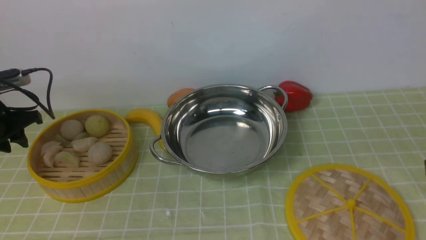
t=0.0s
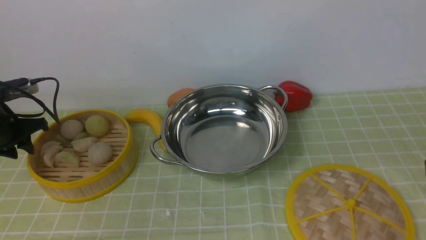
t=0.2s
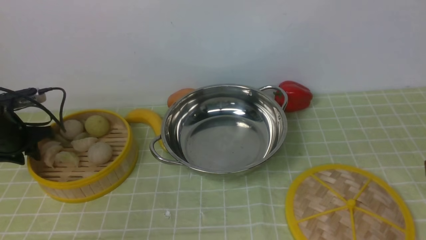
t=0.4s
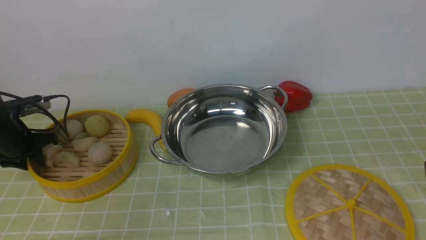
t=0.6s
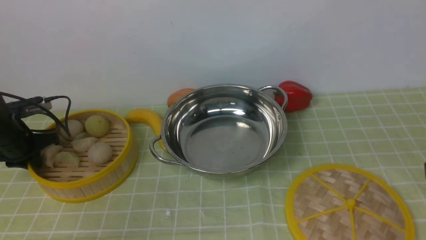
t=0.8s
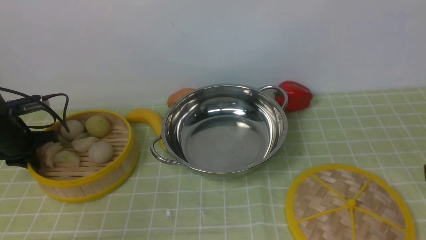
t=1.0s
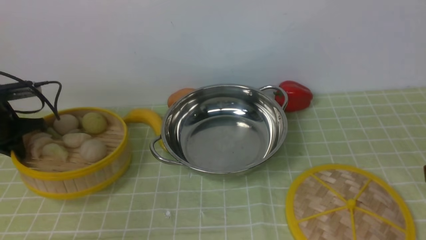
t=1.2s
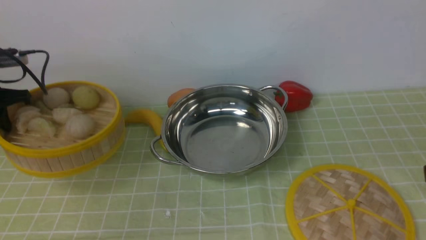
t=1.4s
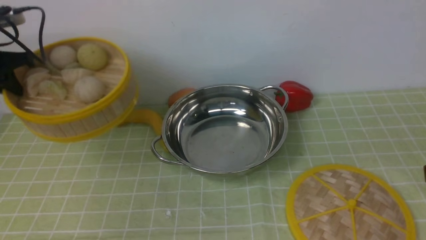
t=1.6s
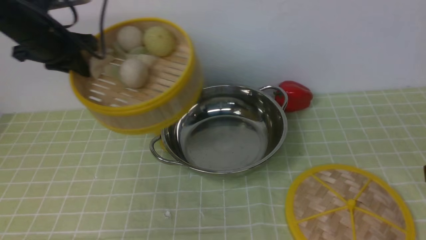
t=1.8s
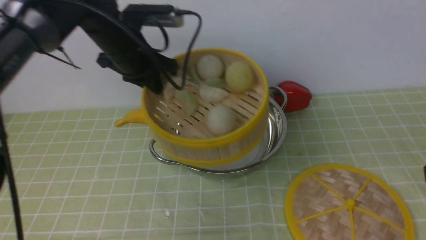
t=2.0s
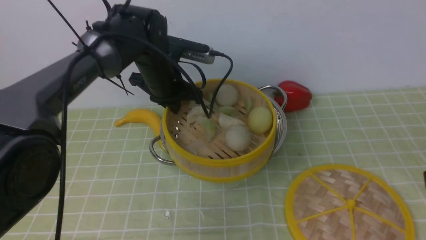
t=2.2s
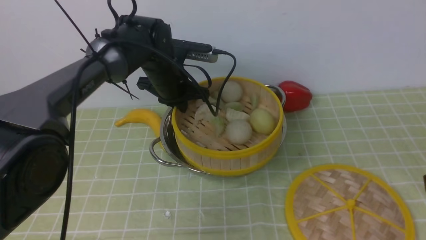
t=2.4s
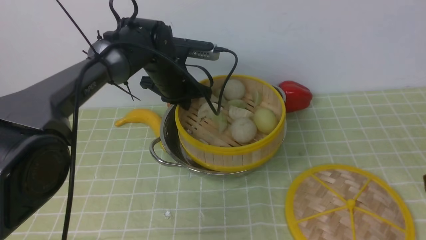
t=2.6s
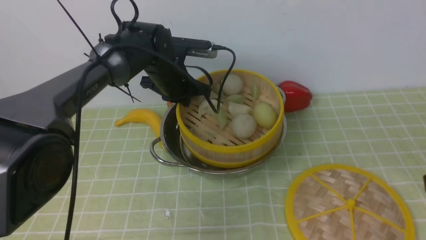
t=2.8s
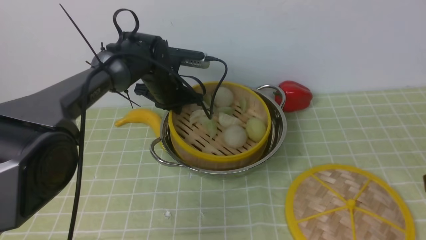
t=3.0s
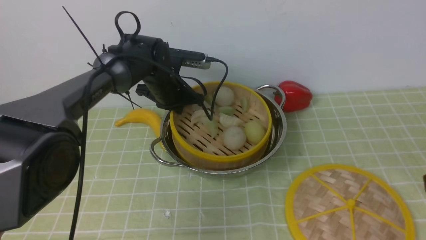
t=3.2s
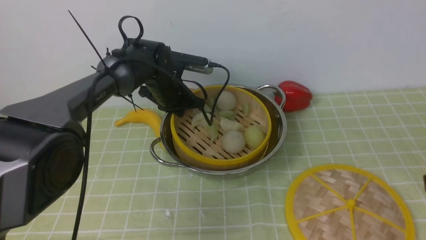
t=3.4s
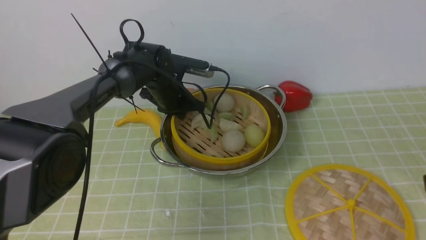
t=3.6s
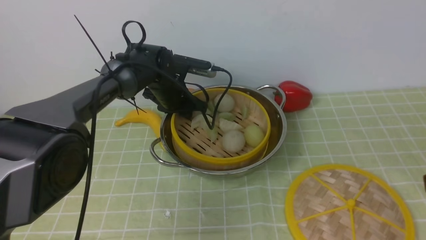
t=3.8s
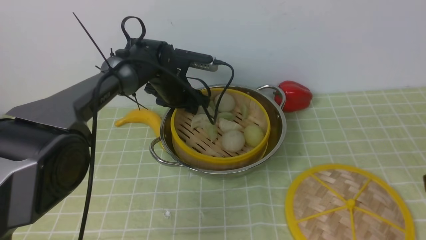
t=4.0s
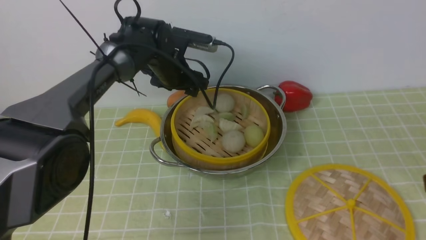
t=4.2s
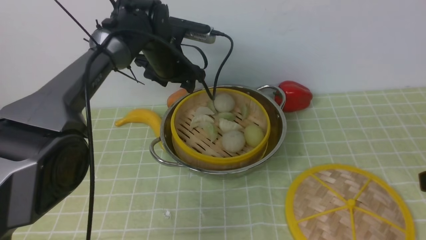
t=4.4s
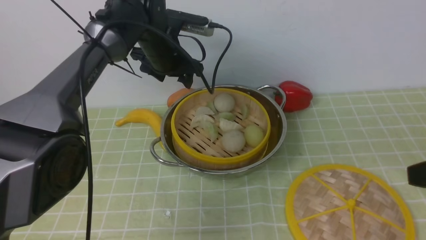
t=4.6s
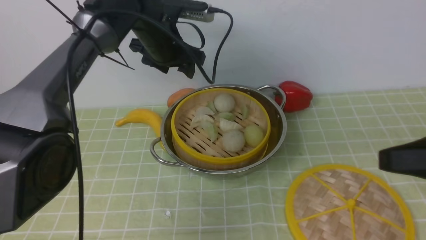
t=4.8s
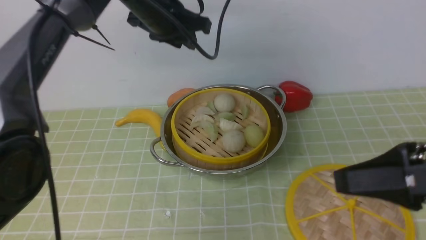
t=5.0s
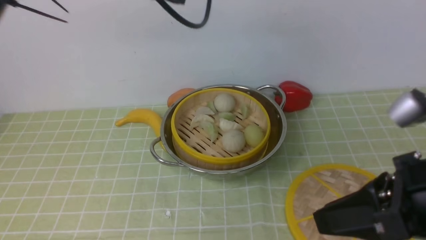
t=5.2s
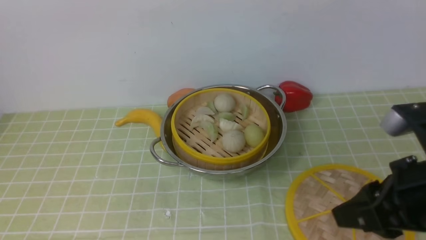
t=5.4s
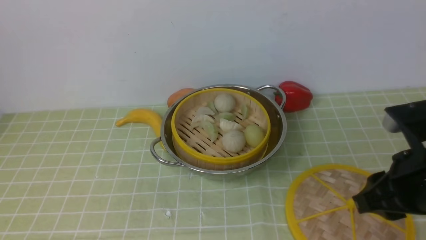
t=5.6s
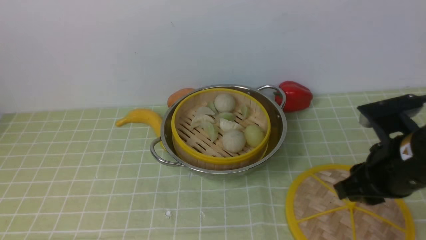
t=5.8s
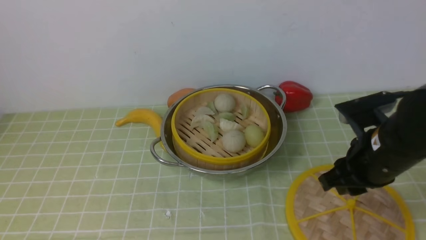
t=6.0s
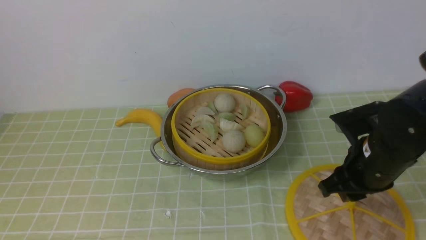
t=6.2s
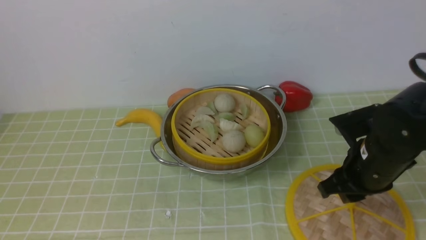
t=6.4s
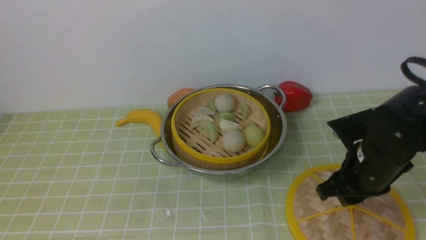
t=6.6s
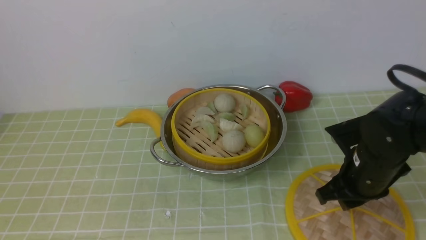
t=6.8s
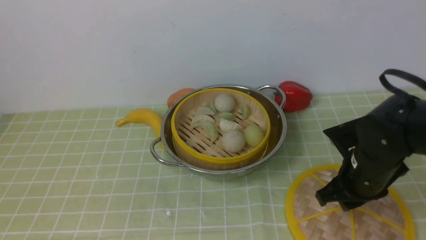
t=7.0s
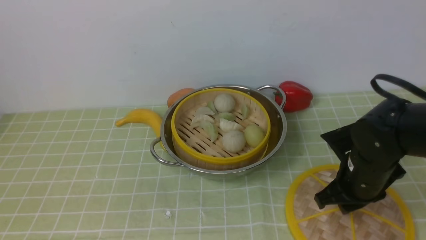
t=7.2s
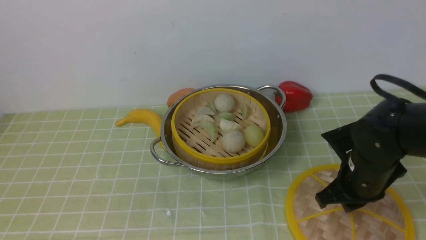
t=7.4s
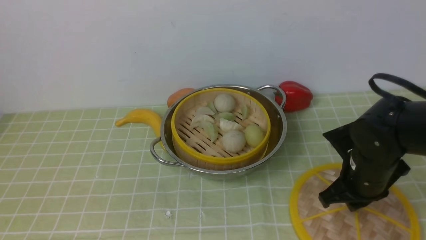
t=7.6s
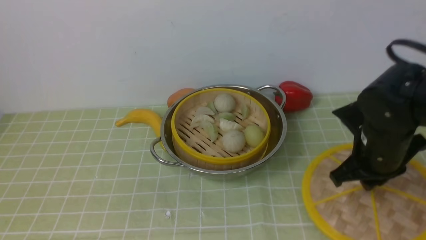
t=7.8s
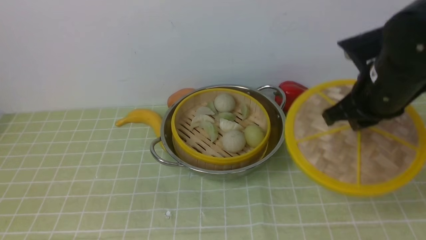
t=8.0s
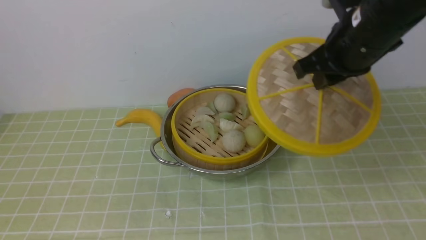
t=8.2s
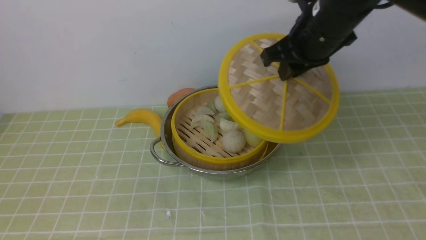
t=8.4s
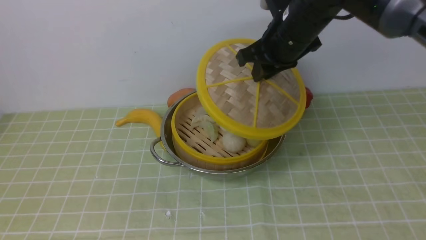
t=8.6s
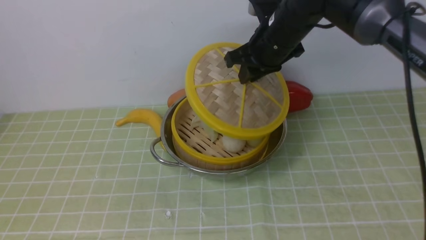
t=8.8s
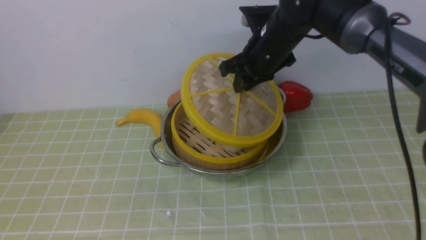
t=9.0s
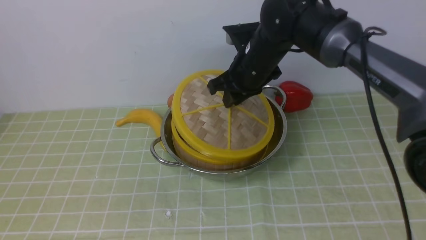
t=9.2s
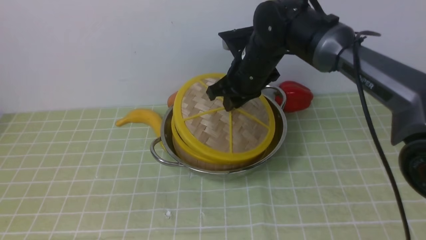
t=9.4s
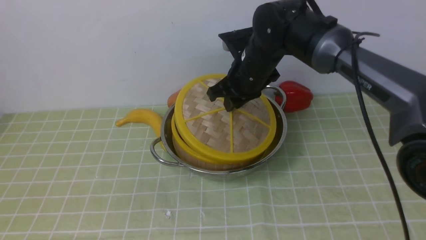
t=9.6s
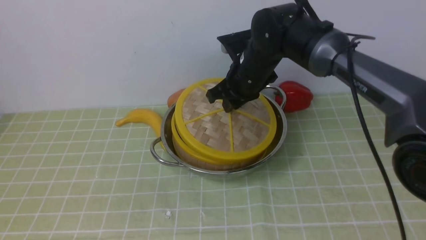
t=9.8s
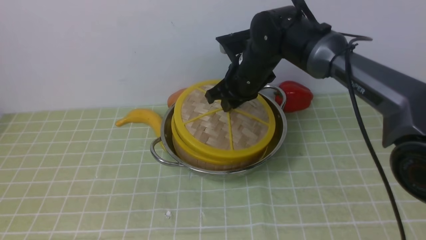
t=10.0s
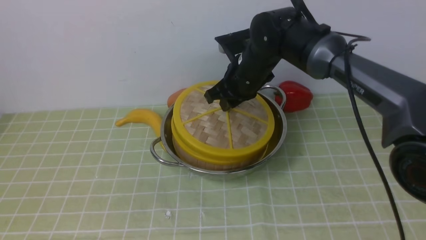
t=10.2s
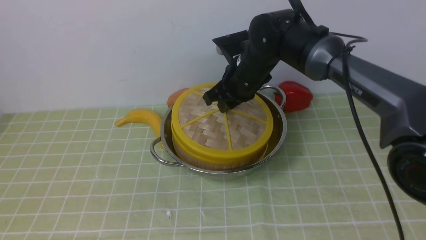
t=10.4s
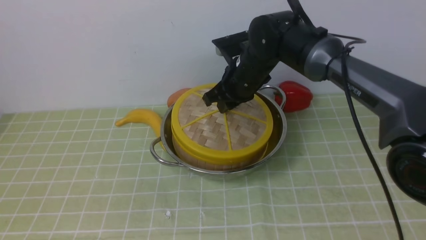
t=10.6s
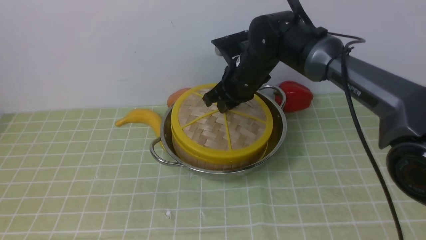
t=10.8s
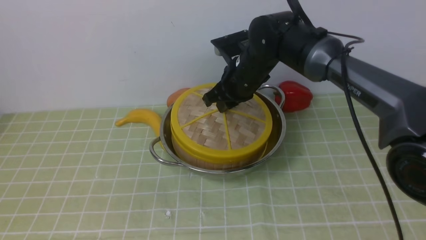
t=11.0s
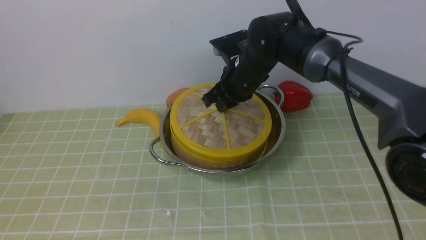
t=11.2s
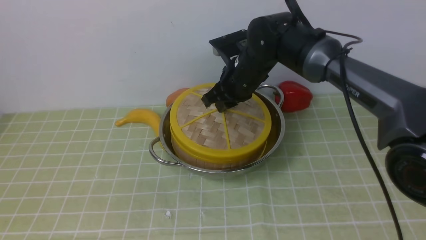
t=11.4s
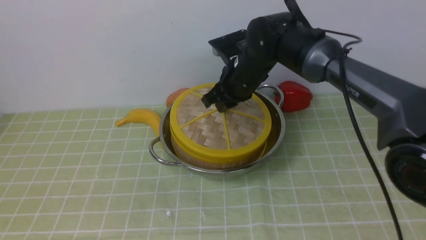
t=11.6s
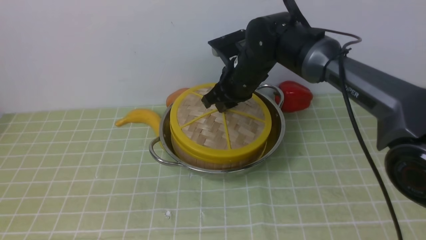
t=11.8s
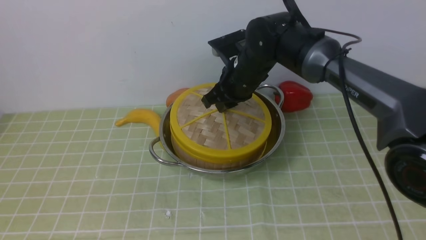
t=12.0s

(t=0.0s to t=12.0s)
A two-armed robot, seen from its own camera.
Task of the whole recording: place the steamer in the pot on the green tablecloth, and put the lid on the steamer.
Step, t=1.8s - t=4.2s: use the left arm to put the steamer into the iron steamer pot in the middle.
Step, t=4.4s - t=8.0s: use the right arm to lift the lid of the steamer.
t=0.0s - t=1.6s: The left gripper heads upward, covering some 10 cm, and closes its fingers.
t=1.6s - t=3.0s: The left gripper is displaced to the right and downward by about 25 cm.
t=3.0s - t=4.4s: The left gripper travels upward by approximately 5 cm, and opens.
t=4.4s - t=6.0s: The right gripper travels forward, downward and to the left by approximately 15 cm. Meanwhile the left gripper is displaced backward and upward by roughly 50 cm, and closes.
t=6.0s - t=7.6s: The right gripper moves approximately 5 cm.
t=7.6s - t=9.0s: The right gripper goes about 20 cm forward, to the left and upward.
t=9.0s - t=10.4s: The right gripper changes place by approximately 5 cm.
t=10.4s - t=12.0s: Both grippers stay about where they are.

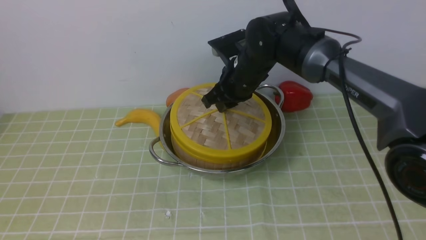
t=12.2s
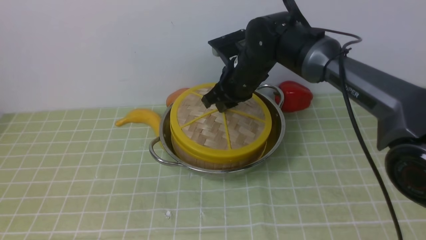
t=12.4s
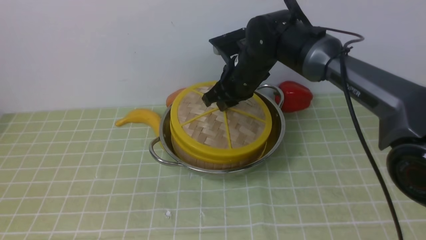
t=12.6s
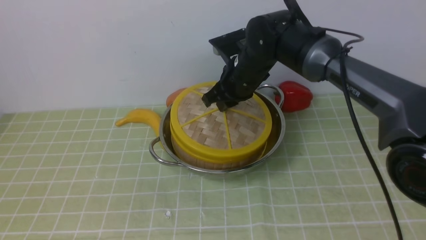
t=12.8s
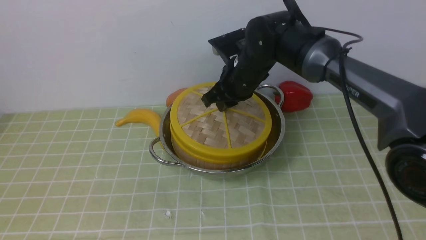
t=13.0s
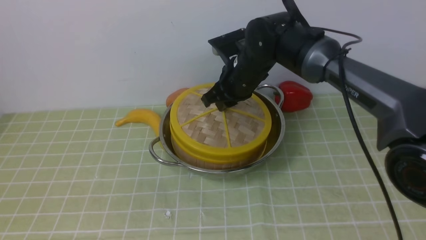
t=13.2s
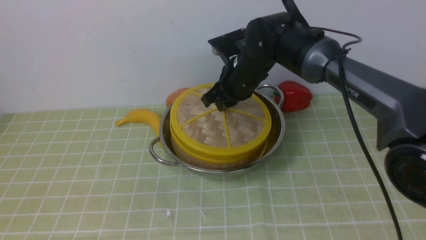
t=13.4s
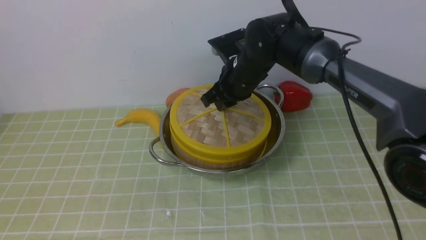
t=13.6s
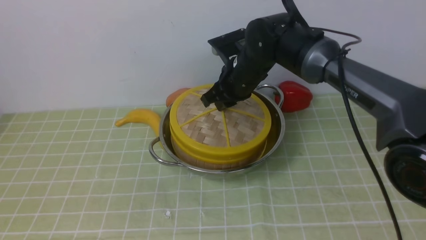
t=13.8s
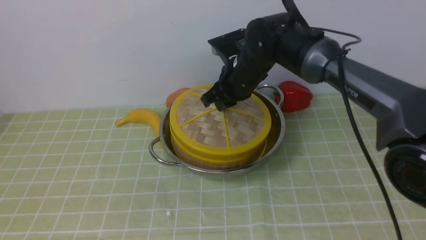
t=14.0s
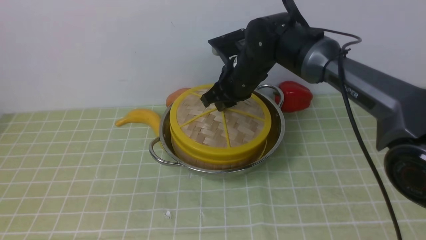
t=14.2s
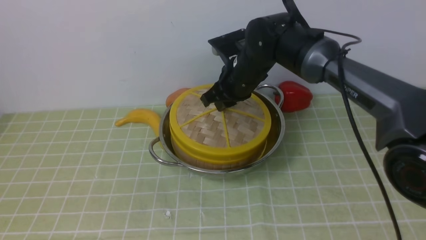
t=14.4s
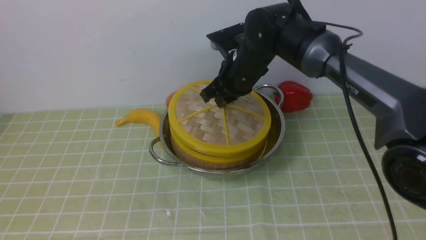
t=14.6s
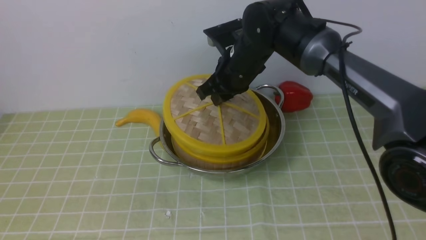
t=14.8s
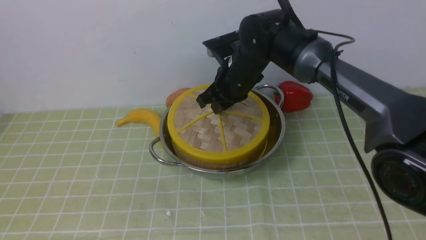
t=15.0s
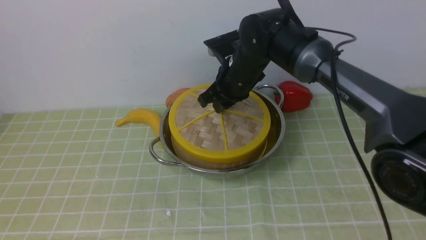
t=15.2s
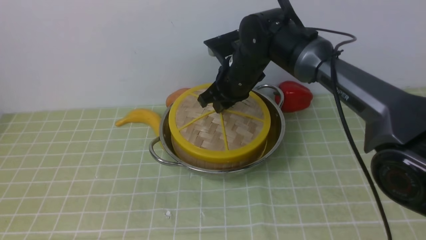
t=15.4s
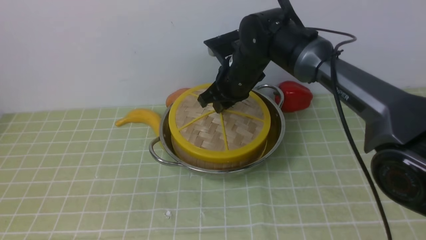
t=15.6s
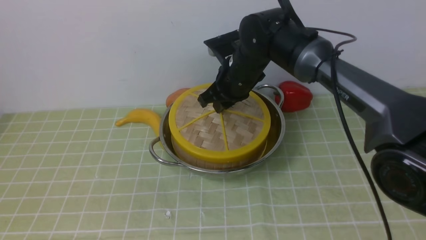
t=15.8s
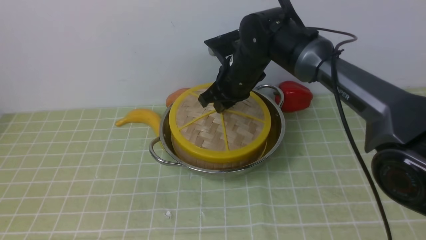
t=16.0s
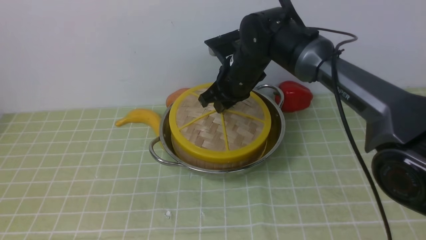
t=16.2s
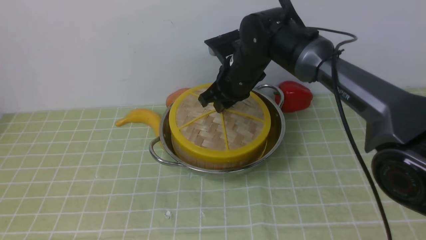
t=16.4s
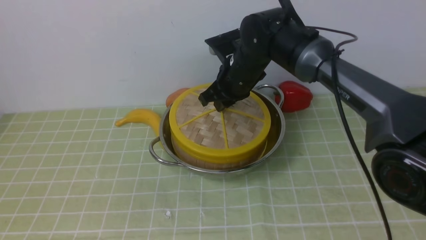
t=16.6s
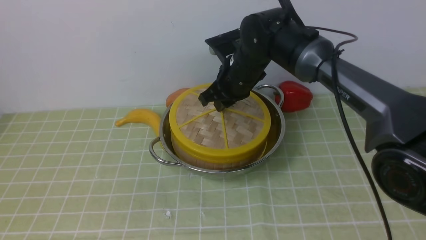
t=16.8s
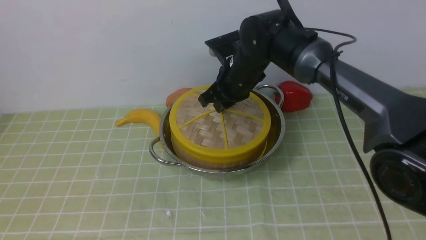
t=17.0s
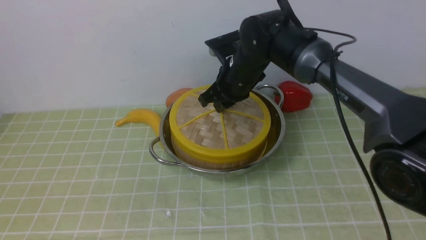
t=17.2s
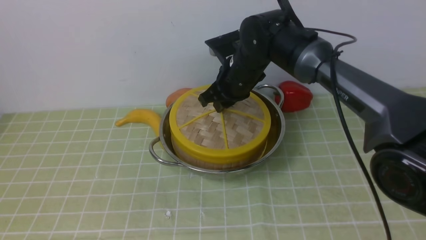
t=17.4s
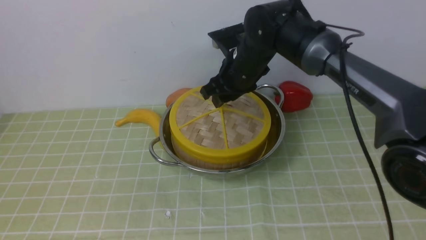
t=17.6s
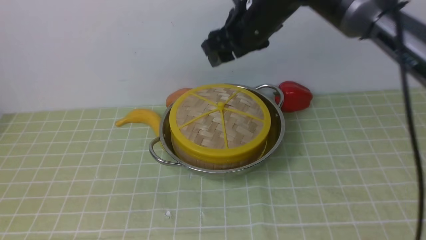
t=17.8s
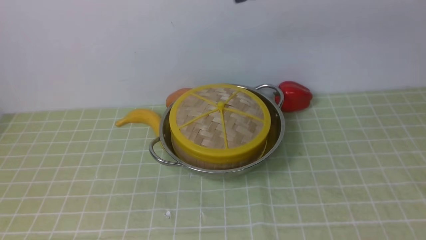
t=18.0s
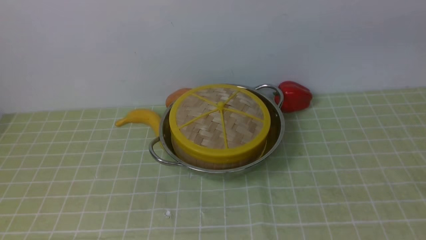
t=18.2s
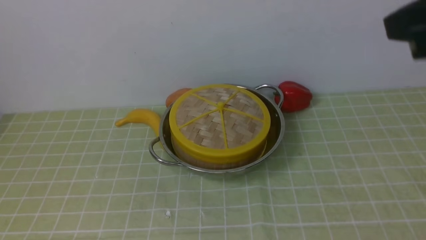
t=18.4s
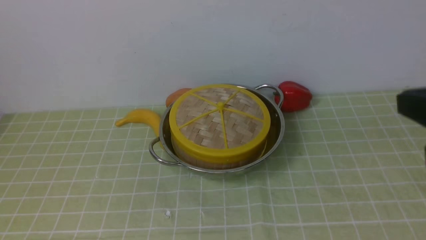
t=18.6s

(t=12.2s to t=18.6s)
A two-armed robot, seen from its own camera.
Task of the whole recording: place the steamer in the pot on the green tablecloth, and put the lid on the steamer.
Step, t=12.2s - t=18.4s: use the right arm to place the steamer lid on the steamer.
t=12.2s - t=17.0s: Both grippers stay about where they are.
t=17.0s - t=18.6s: The right gripper heads backward, to the right and upward, covering about 40 cm, and closes.
